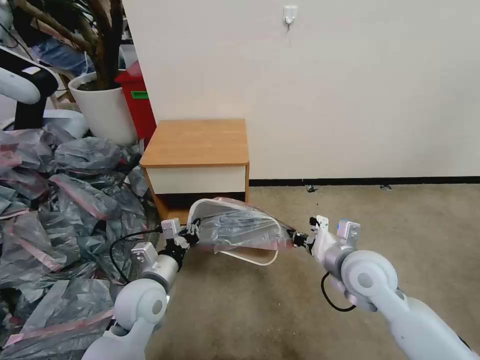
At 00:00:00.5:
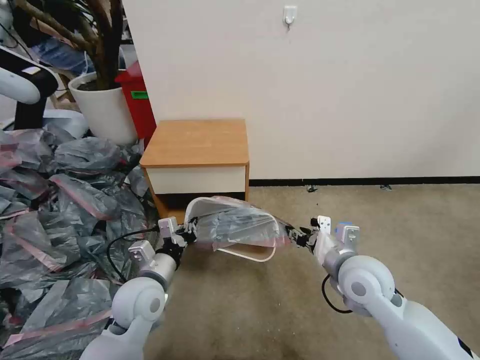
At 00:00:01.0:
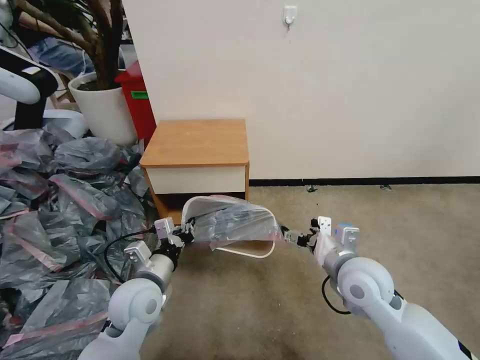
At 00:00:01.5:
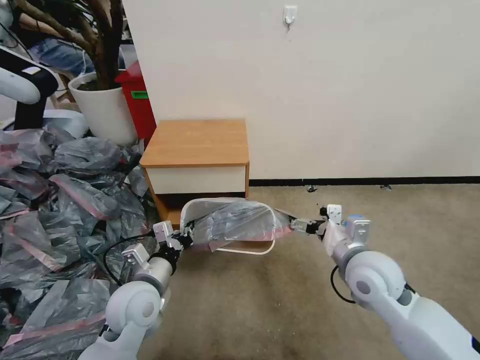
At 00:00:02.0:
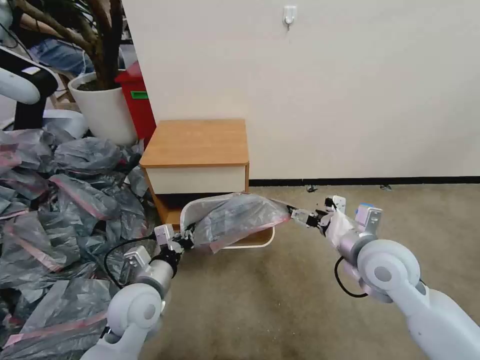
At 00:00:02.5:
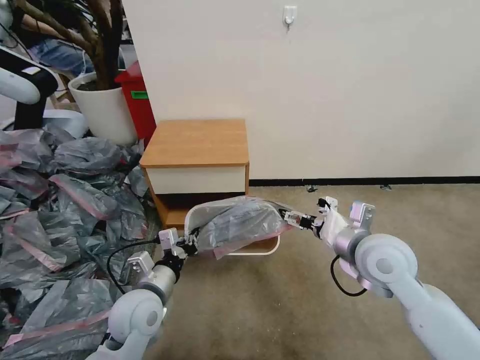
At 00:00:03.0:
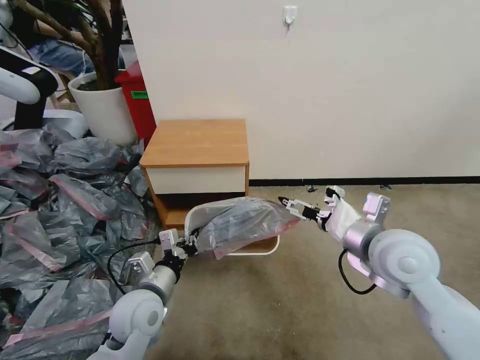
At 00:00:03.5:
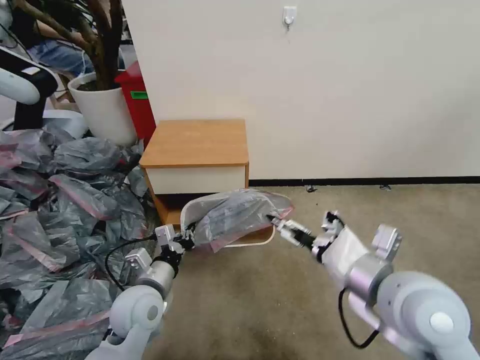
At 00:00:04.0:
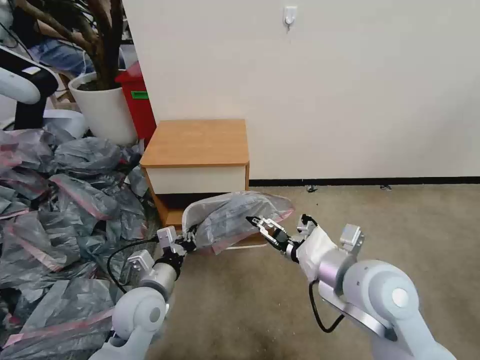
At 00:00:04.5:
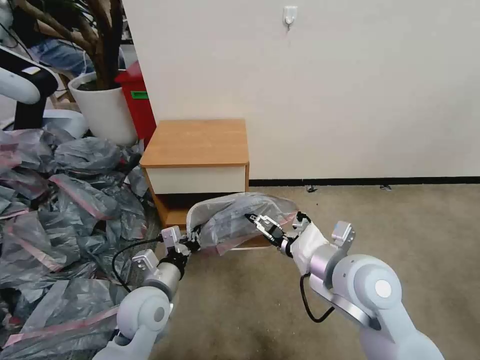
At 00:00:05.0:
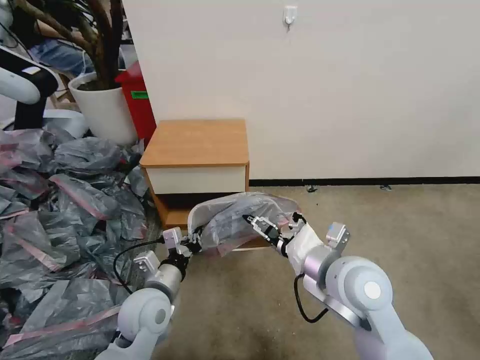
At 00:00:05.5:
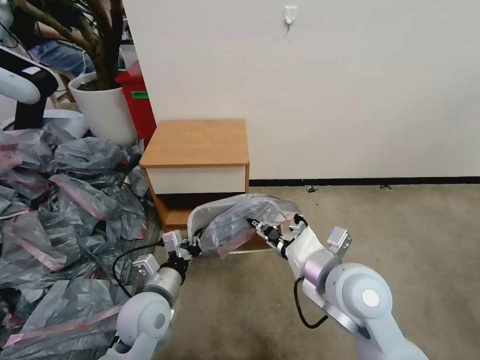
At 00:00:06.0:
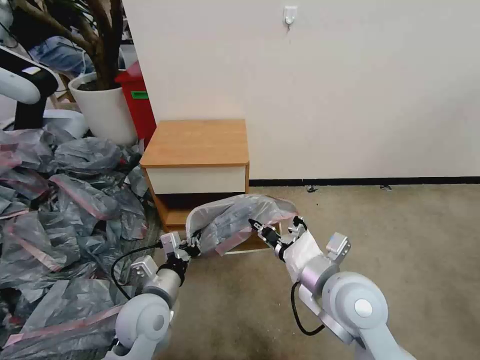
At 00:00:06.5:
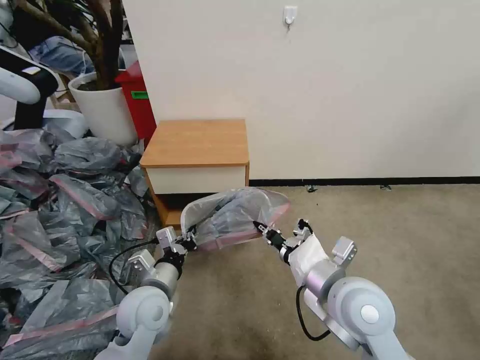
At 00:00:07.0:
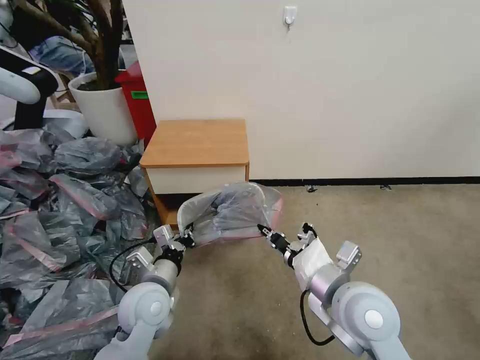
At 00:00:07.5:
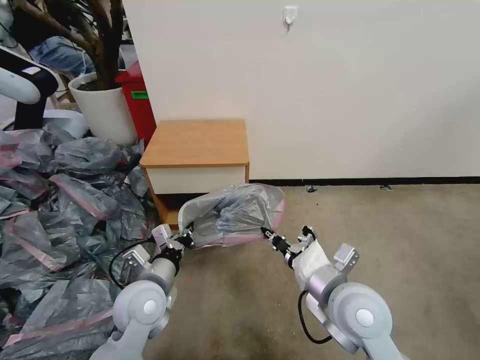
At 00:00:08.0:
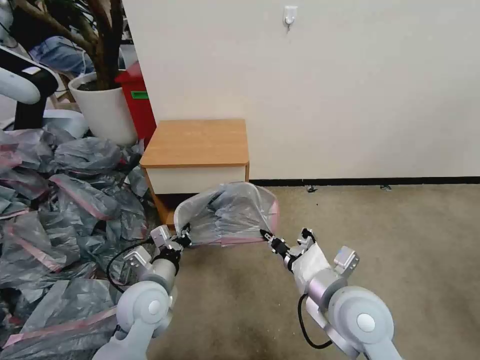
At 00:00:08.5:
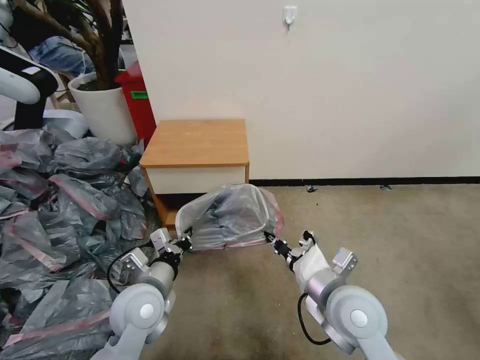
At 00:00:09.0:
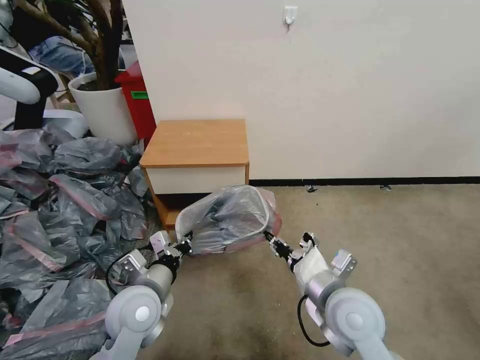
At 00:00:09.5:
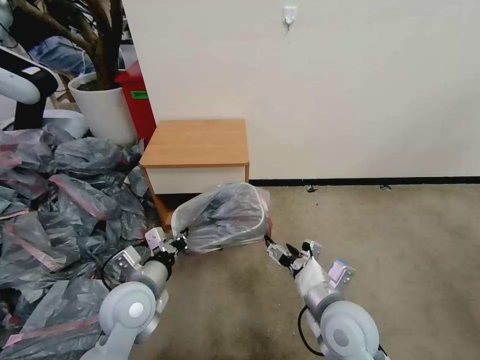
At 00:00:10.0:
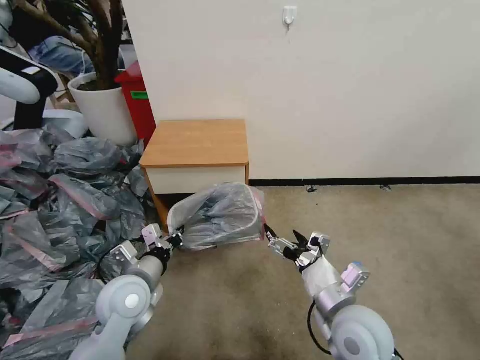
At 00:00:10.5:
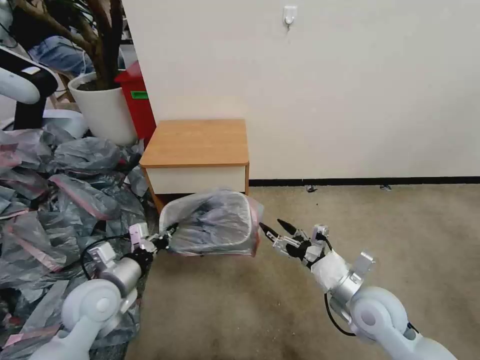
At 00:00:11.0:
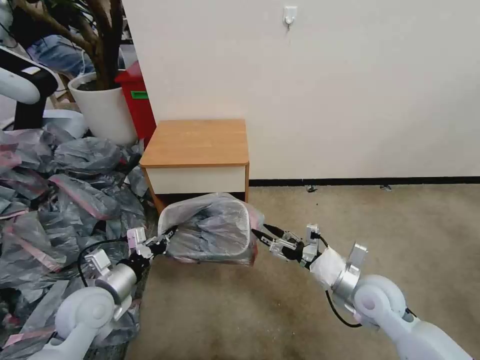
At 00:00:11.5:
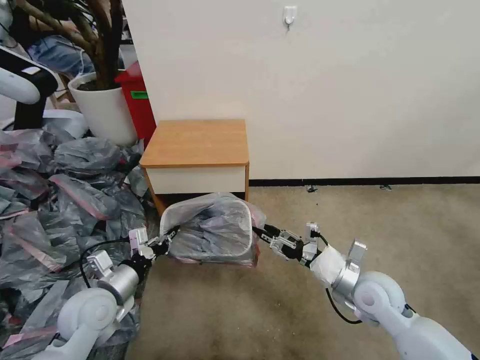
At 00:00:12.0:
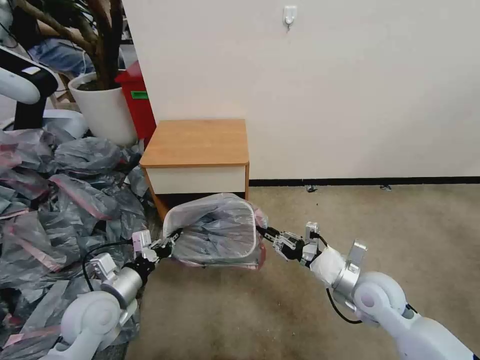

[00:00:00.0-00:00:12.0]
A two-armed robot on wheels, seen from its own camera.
Task of the whole recording: Pick up the garbage bag from the table and place it over the trash can.
00:00:00.0 to 00:00:02.0: The right gripper opens up.
00:00:02.0 to 00:00:04.0: The right gripper shifts some 10 cm to the left and backward.
00:00:04.0 to 00:00:06.0: The right gripper closes up.
00:00:06.0 to 00:00:08.0: The grippers move only a little.
00:00:08.0 to 00:00:10.0: The right gripper shifts by some 5 cm, and opens its fingers.
00:00:10.0 to 00:00:12.0: The left gripper heads to the left, covering about 5 cm; the right gripper travels to the right and forward by about 10 cm, and closes.

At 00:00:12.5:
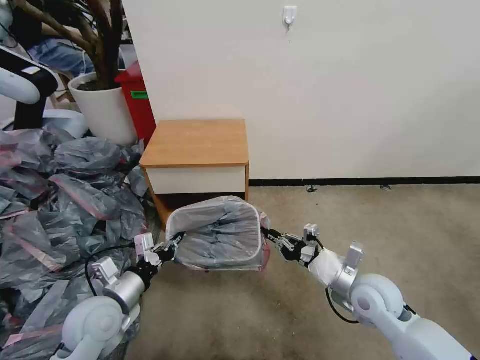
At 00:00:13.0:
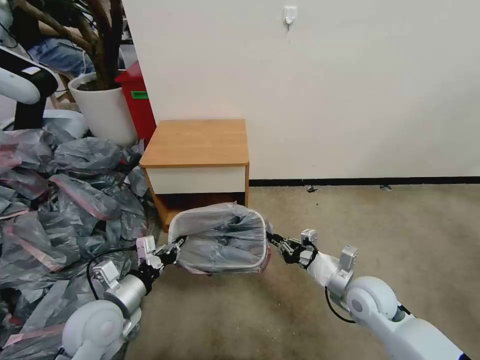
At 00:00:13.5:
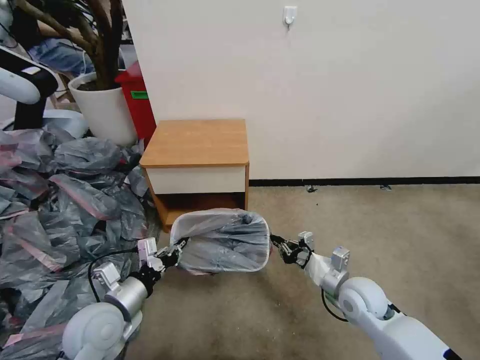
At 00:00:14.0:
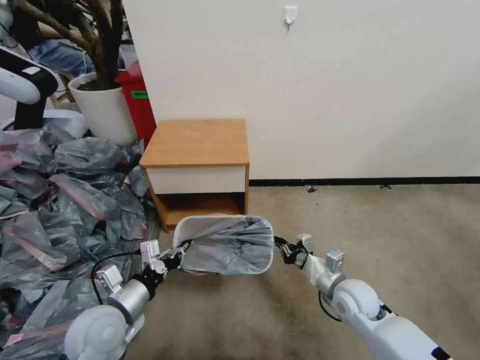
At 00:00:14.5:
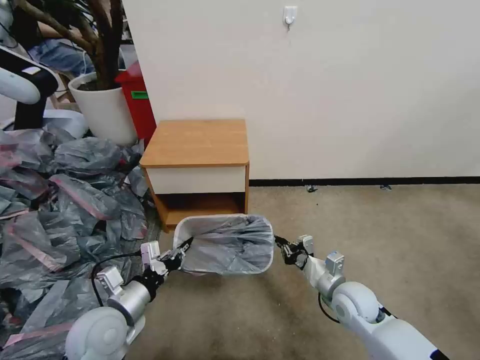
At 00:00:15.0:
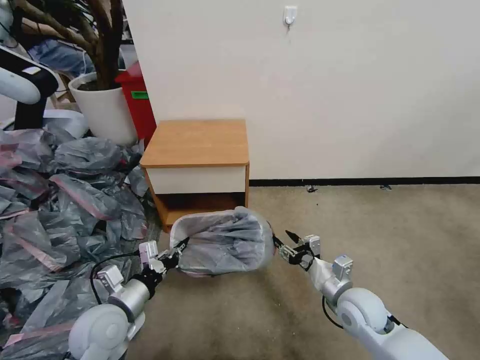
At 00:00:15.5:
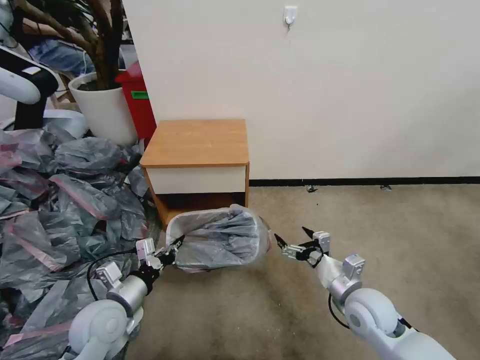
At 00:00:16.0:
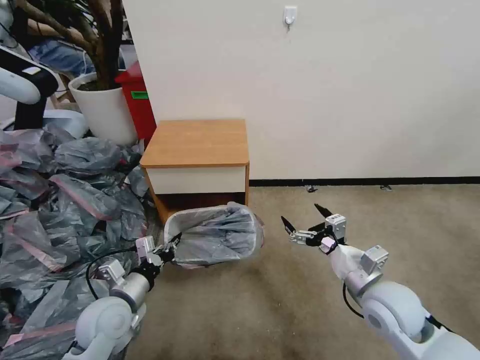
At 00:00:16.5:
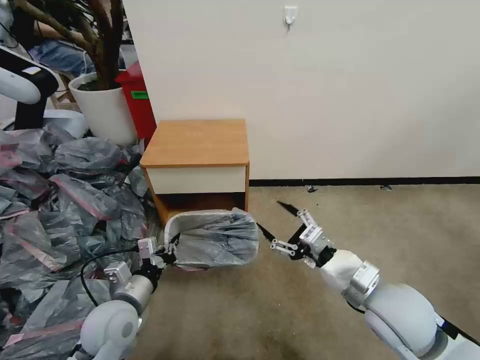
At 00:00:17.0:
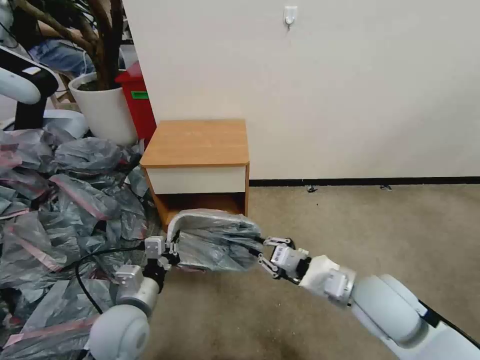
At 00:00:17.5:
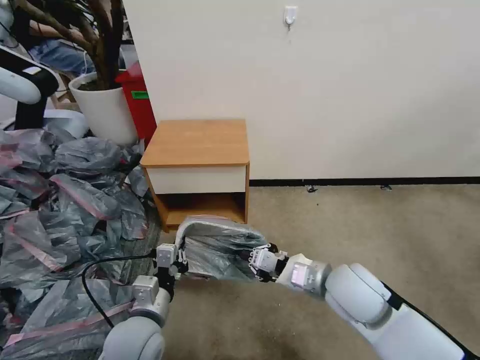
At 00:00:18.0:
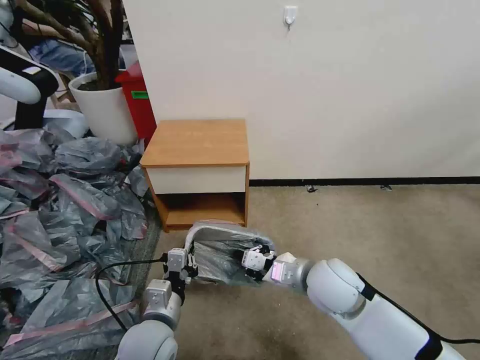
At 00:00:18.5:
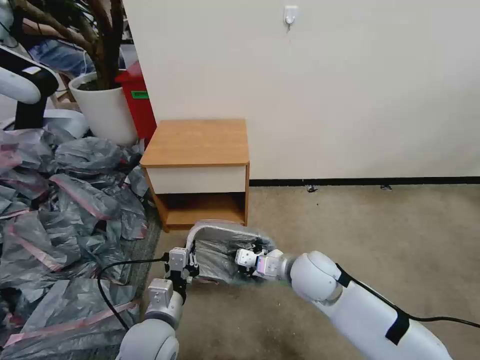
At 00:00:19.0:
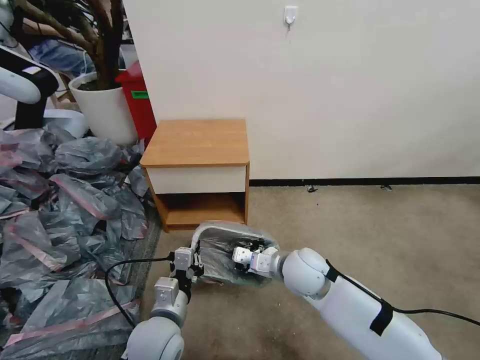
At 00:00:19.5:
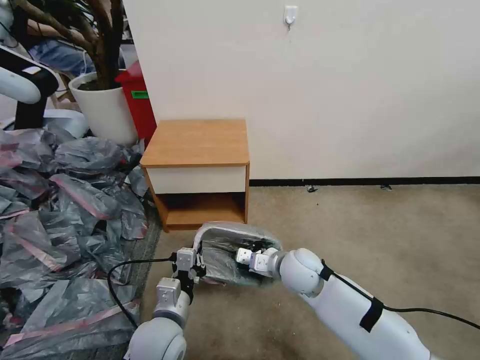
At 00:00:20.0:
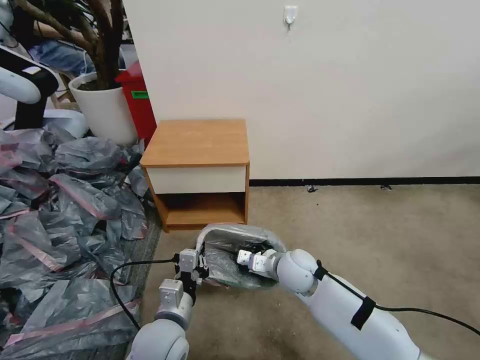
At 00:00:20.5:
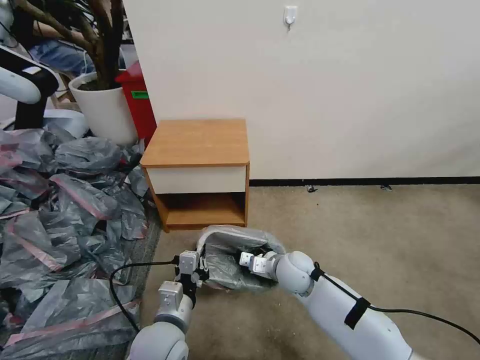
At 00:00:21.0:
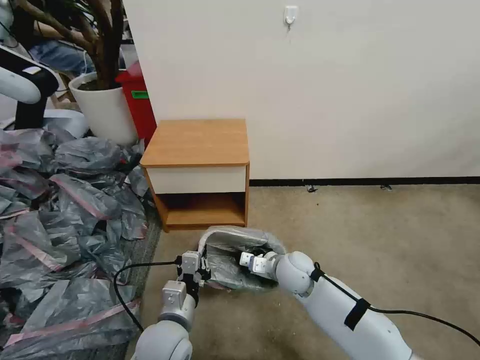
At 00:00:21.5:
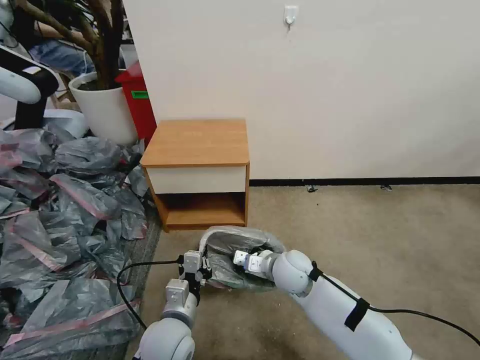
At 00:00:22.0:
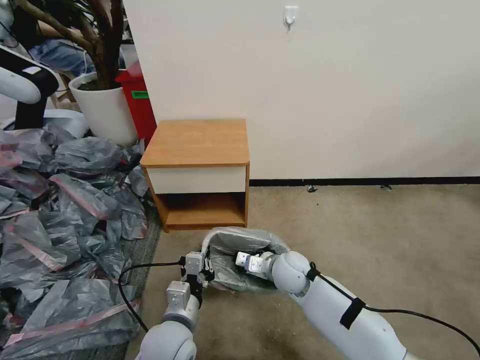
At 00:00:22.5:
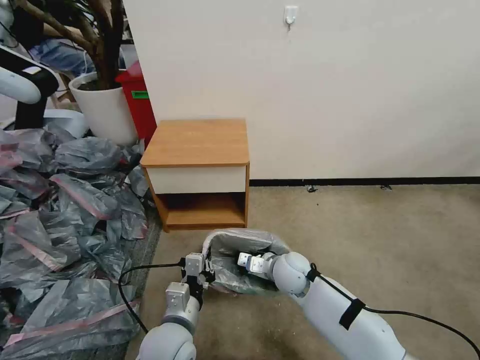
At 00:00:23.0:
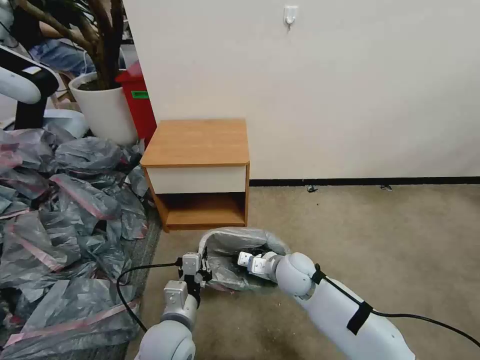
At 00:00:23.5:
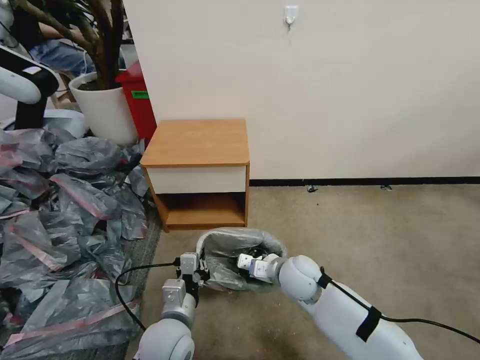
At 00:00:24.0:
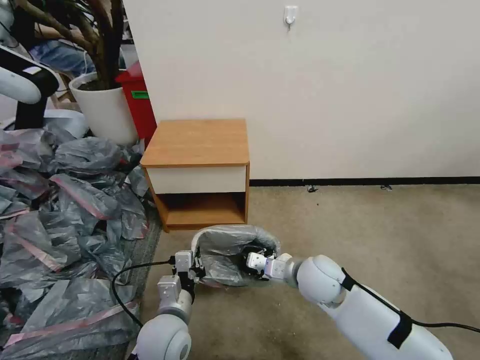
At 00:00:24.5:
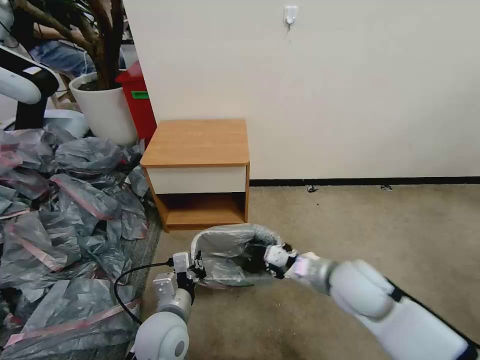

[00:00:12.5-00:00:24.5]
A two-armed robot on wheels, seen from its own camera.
Task of the whole recording: Pick up the garbage bag from the table and place it over the trash can.
00:00:12.5 to 00:00:14.5: The right gripper heads downward, covering approximately 5 cm.
00:00:14.5 to 00:00:16.5: The right gripper goes about 15 cm upward and backward, and opens.
00:00:16.5 to 00:00:18.5: The left gripper heads to the right, covering about 10 cm, while the right gripper goes roughly 15 cm to the left, forward and downward, and closes its fingers.
00:00:18.5 to 00:00:20.5: The right gripper shifts approximately 10 cm downward.
00:00:20.5 to 00:00:22.5: The grippers move only a little.
00:00:22.5 to 00:00:24.5: The right gripper goes some 15 cm upward, to the right and backward.

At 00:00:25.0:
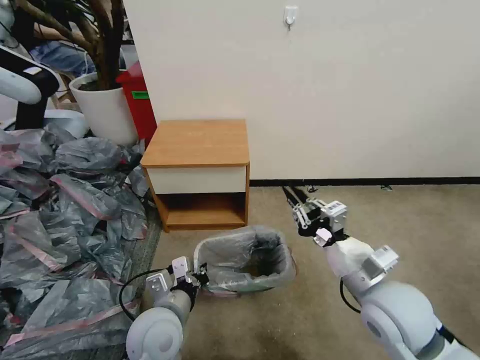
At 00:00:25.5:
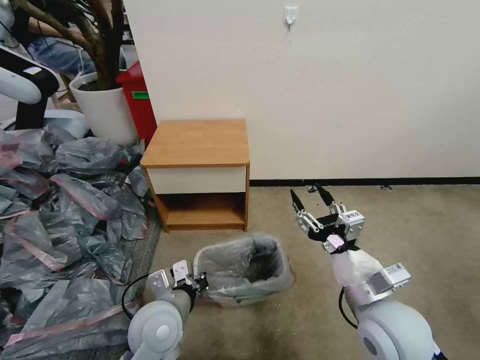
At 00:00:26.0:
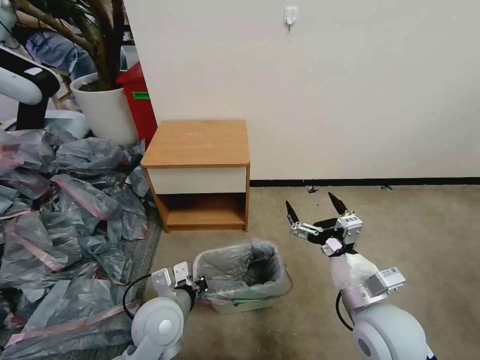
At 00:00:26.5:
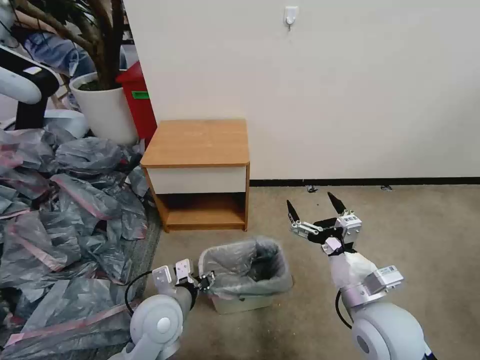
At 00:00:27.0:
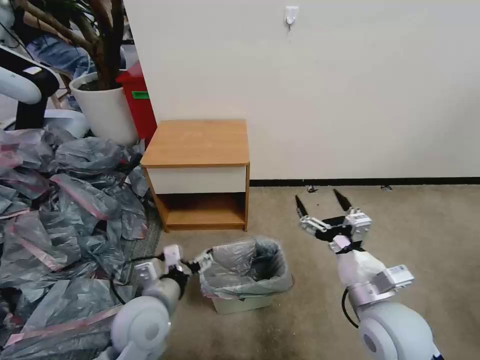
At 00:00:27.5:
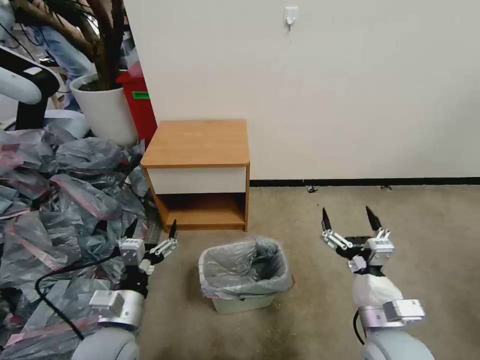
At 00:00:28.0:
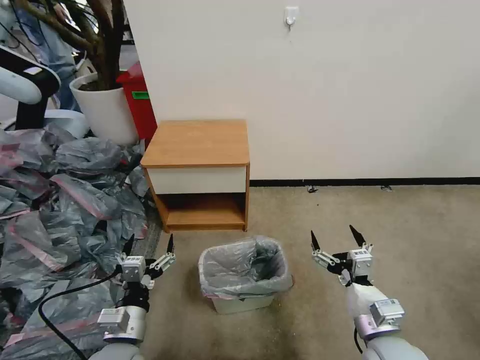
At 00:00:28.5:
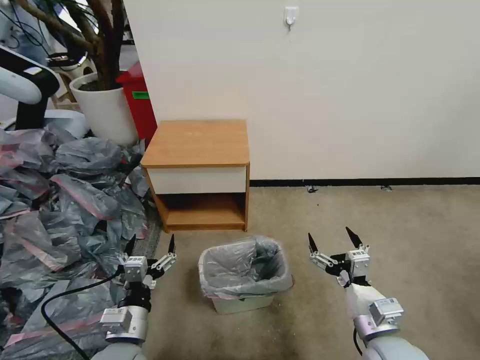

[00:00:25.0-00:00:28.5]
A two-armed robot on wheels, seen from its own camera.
Task of the whole recording: Pick up the garbage bag from the table and place it over the trash can.
00:00:25.0 to 00:00:27.0: The right gripper opens its fingers. The left gripper opens.
00:00:27.0 to 00:00:28.5: The left gripper moves backward and downward, approximately 10 cm. The right gripper heads downward, covering some 5 cm.
